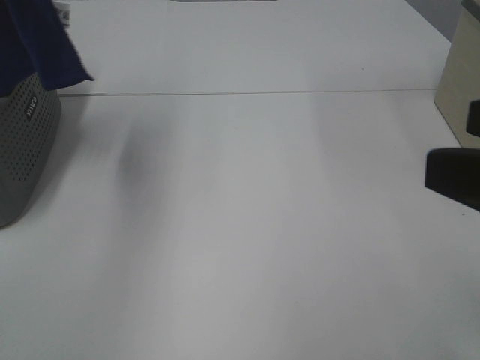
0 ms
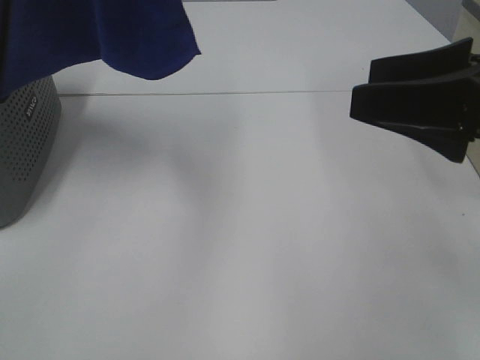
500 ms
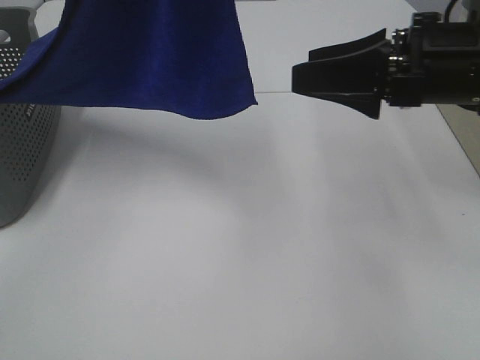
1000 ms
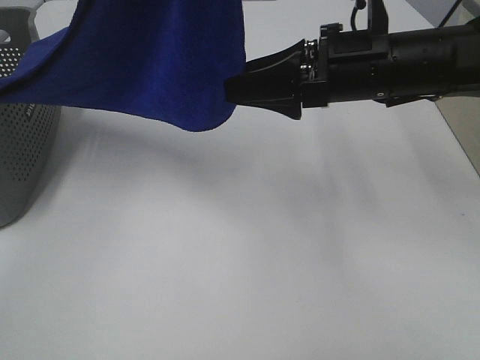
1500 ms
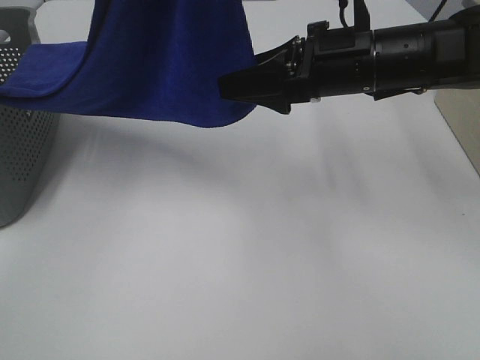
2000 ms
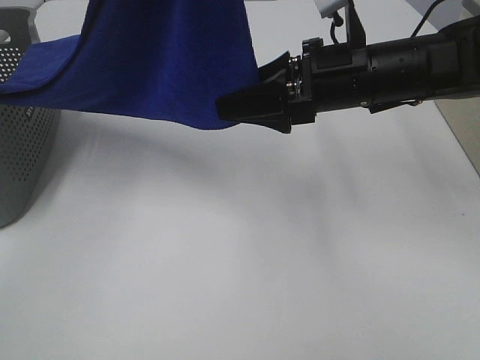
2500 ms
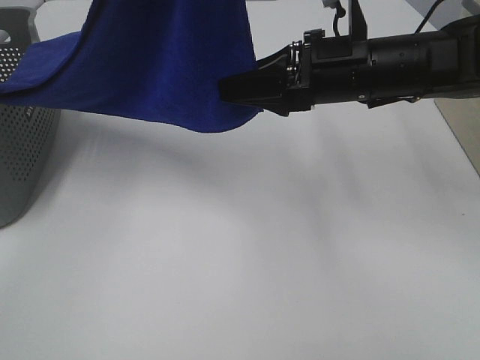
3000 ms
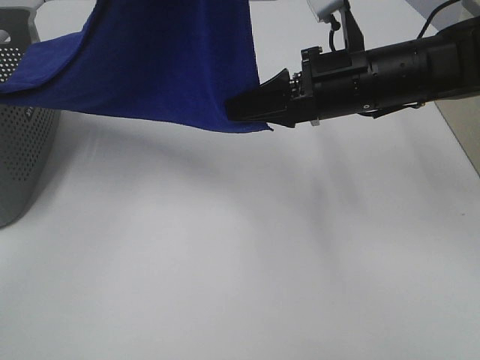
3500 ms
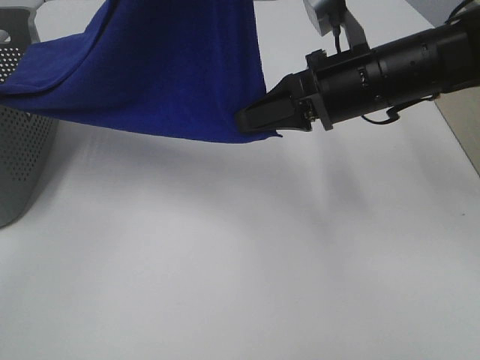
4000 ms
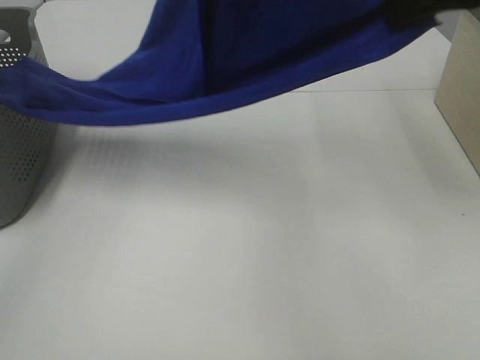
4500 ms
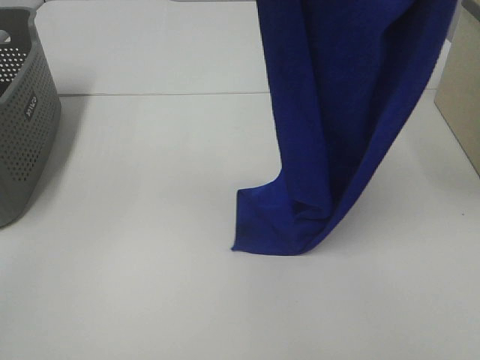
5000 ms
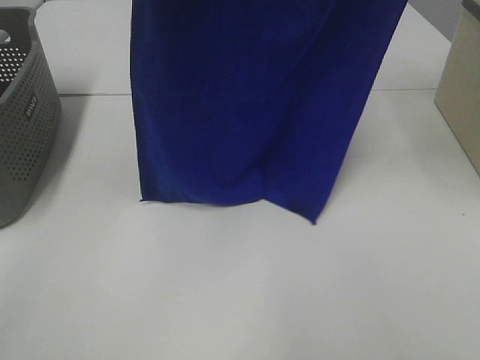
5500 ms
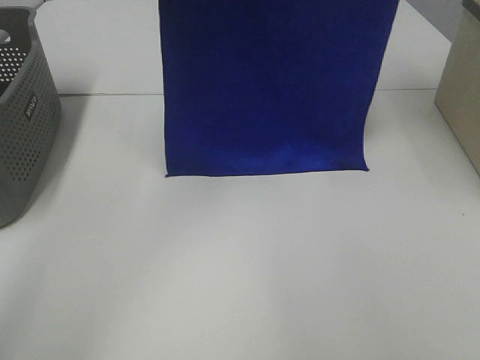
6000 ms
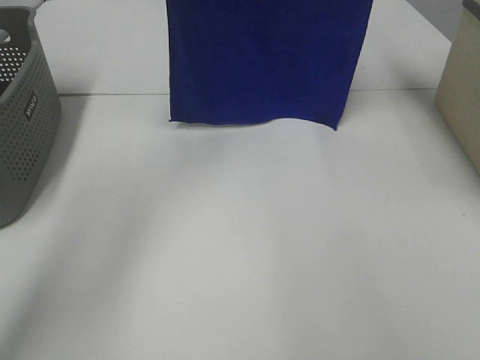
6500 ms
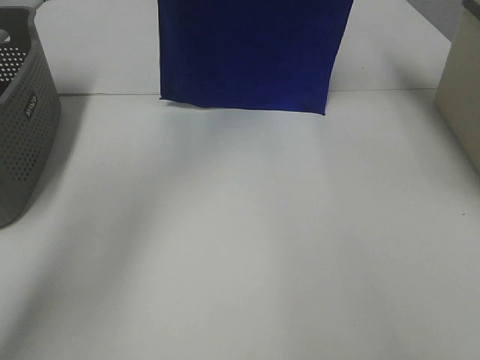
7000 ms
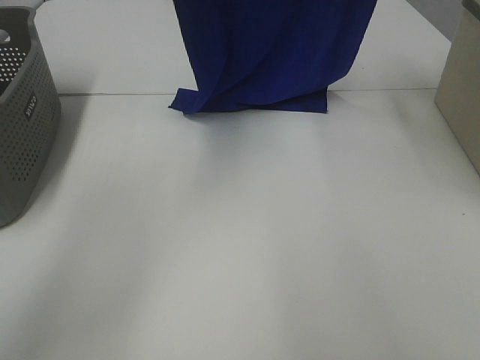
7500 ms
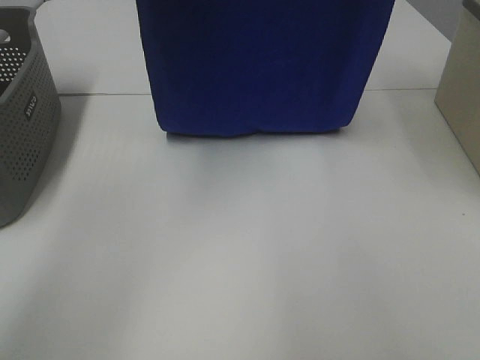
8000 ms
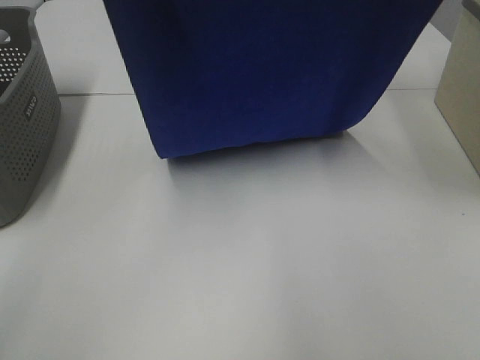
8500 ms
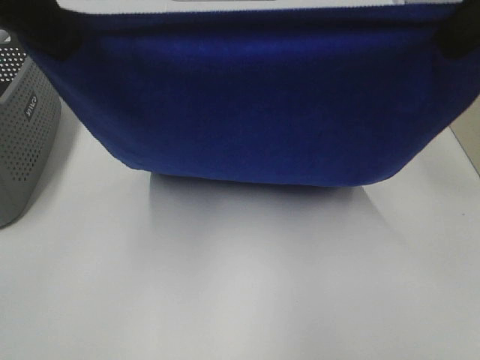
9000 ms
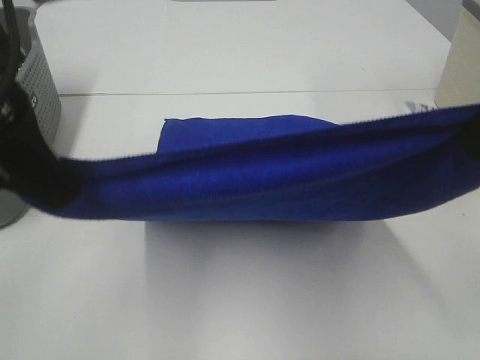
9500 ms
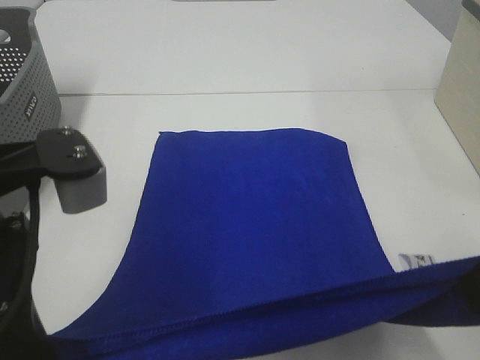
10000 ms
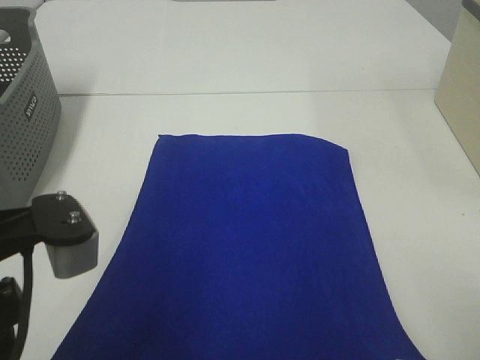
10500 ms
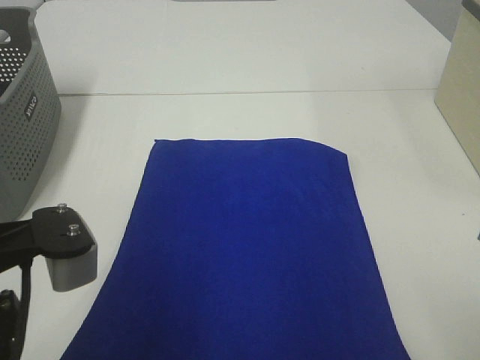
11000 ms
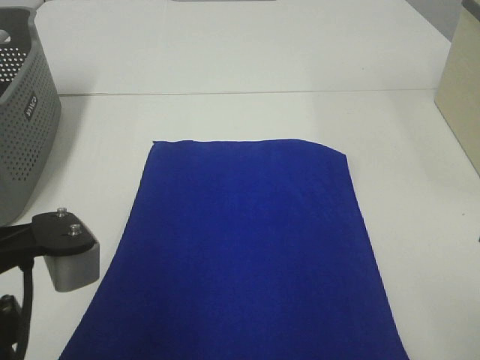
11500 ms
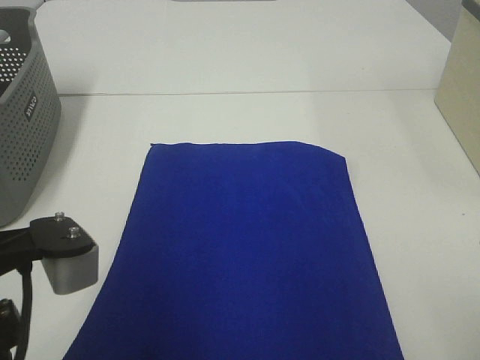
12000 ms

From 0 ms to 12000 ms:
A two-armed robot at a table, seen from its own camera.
Task of the whole recording: Remove the towel and place it.
Step, from 0 ms to 3000 ms: Right hand: grab a corner of the blue towel and straighten it.
Step, from 3500 ms to 7500 ms: Left hand: spread the blue towel flat on the table.
Step, from 3500 ms to 7500 ms: Right hand: spread the blue towel flat on the table.
From 0 ms to 2000 ms: The right gripper goes some 25 cm forward and to the left, while the left gripper shifts about 15 cm to the right.
From 2000 ms to 4000 ms: The right gripper closes up.
From 4000 ms to 6000 ms: The right gripper travels upward by roughly 25 cm; the left gripper heads forward, covering about 15 cm.
From 6000 ms to 8000 ms: The left gripper goes forward and returns, some 10 cm each way, while the right gripper reaches approximately 10 cm forward, then returns.
From 8000 ms to 10000 ms: The two grippers go approximately 35 cm backward and downward.
From 10000 ms to 12000 ms: The right gripper moves downward, about 5 cm.

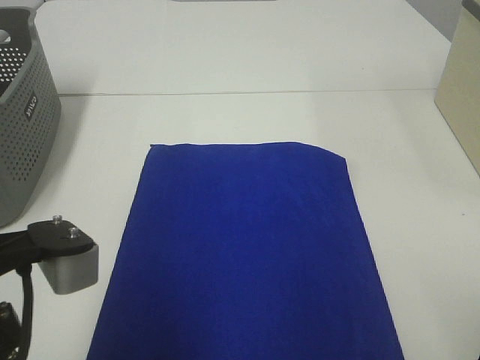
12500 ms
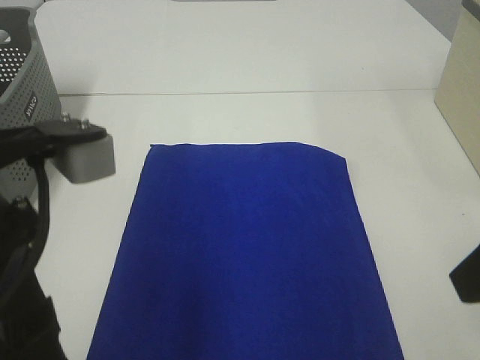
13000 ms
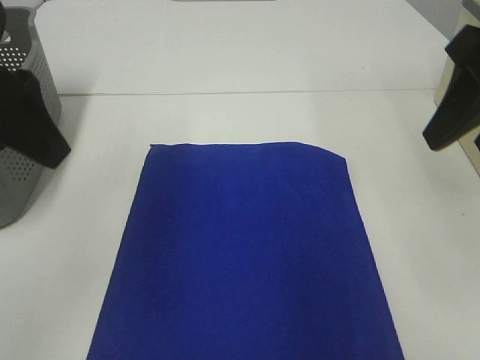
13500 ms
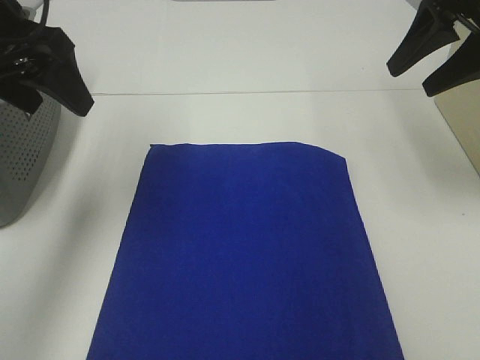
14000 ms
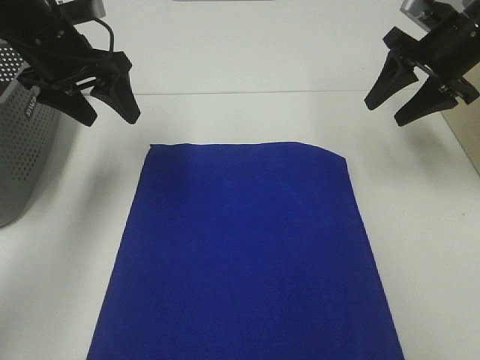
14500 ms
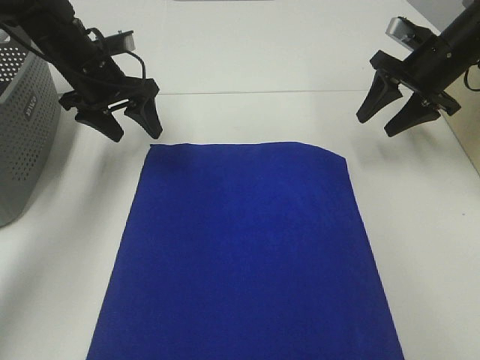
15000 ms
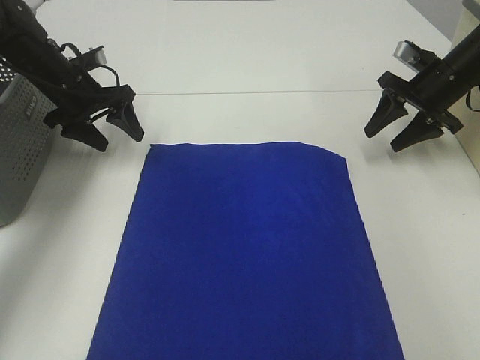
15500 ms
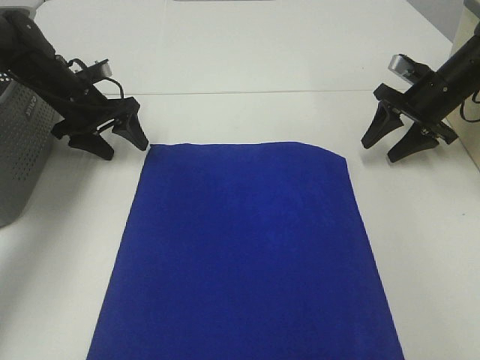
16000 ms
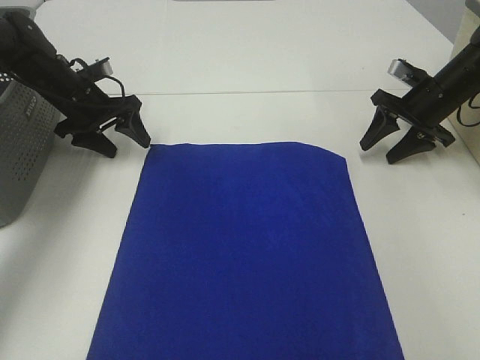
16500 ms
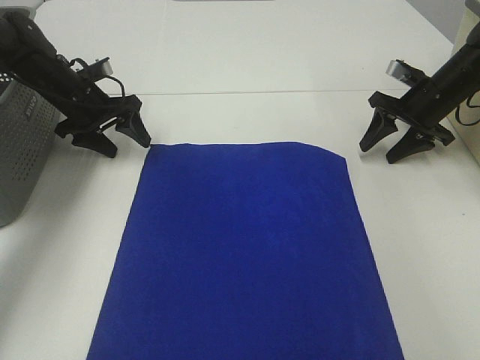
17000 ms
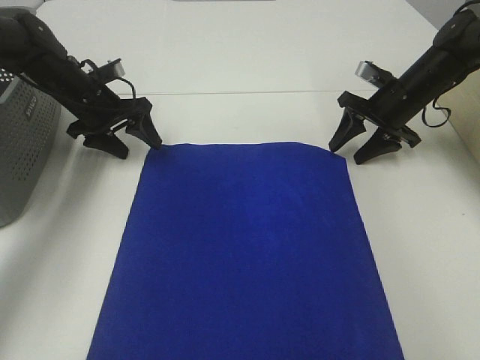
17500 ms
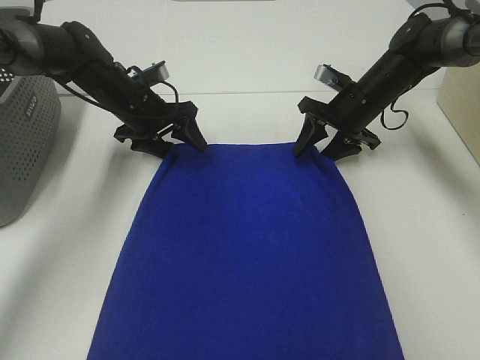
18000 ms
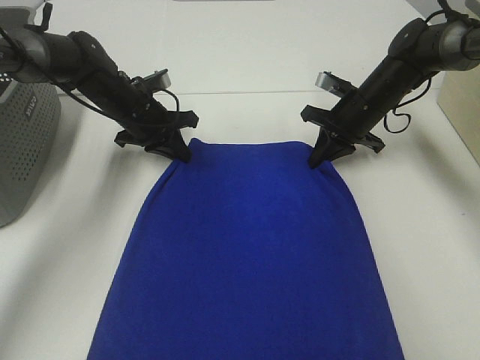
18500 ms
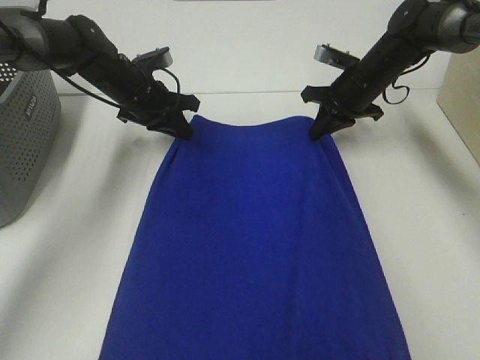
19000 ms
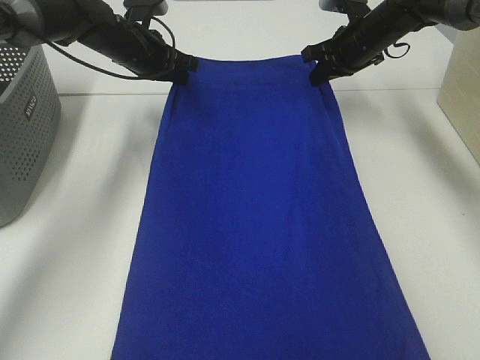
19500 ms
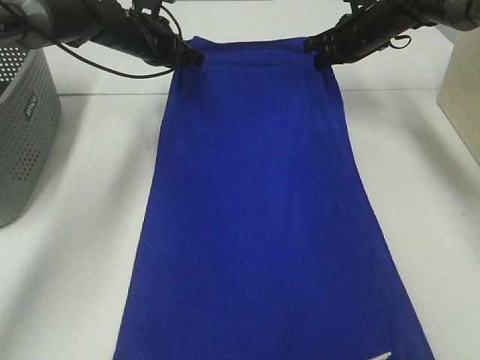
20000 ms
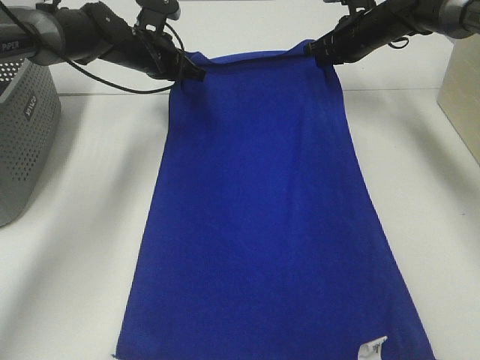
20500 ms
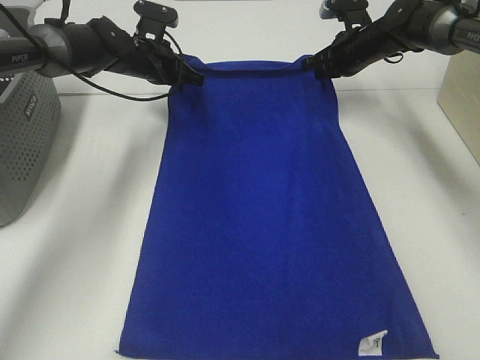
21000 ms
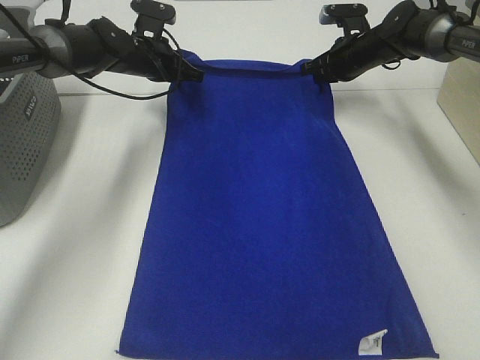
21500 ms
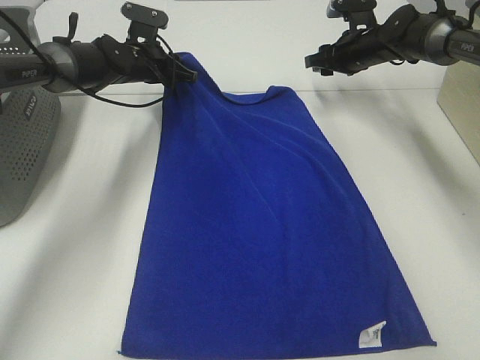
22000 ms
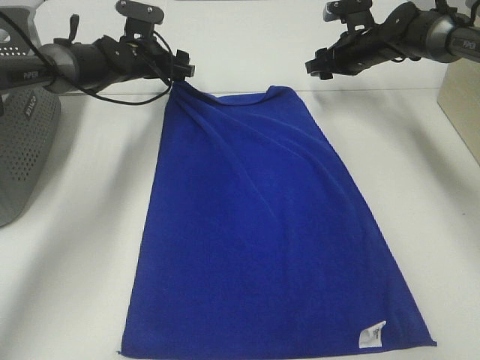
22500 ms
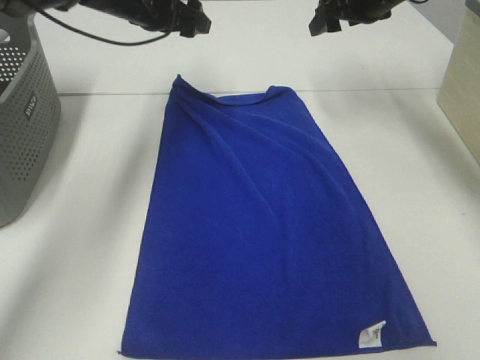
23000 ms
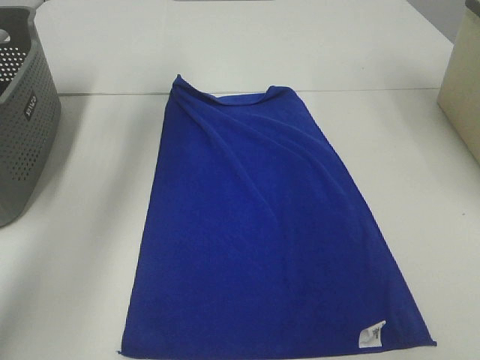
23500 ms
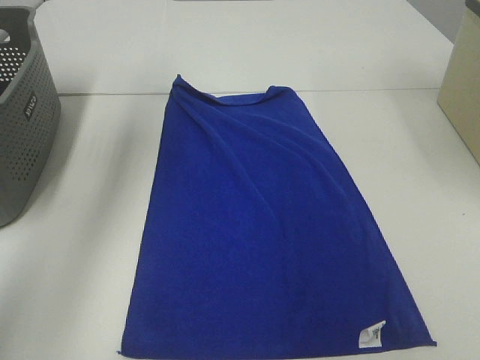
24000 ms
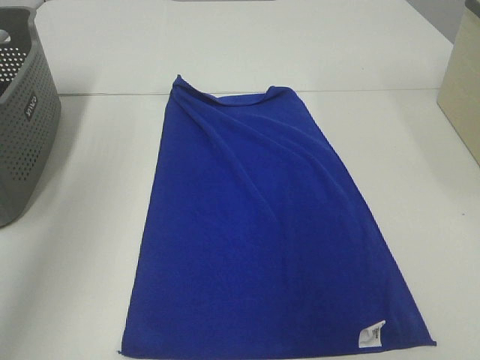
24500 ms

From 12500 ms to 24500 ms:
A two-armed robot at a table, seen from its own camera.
Task of the whole recording: Remove the towel and place it.
Step, from 12500 ms to 15500 ms: Left hand:adjust the blue towel.
Step, from 12500 ms to 15500 ms: Right hand:adjust the blue towel.
From 12500 ms to 14500 ms: The two grippers go about 35 cm forward.
From 14500 ms to 16500 ms: The right gripper is displaced downward by about 10 cm, while the left gripper heads downward and forward, covering about 15 cm.
From 16500 ms to 18500 ms: The left gripper is displaced to the right by about 10 cm, and closes; the right gripper moves to the left, approximately 10 cm, and closes its fingers.
From 18500 ms to 20500 ms: The two grippers go some 10 cm forward and upward.
From 20500 ms to 22500 ms: The left gripper opens its fingers, while the right gripper opens its fingers.
From 22500 ms to 24500 ms: The two grippers go some 50 cm backward and upward.

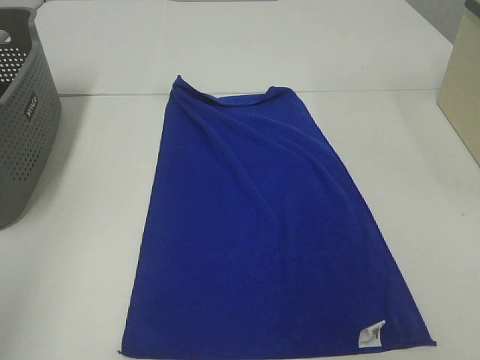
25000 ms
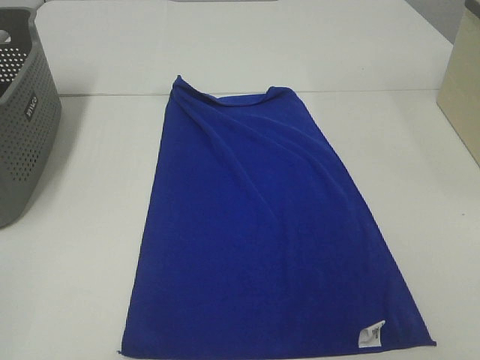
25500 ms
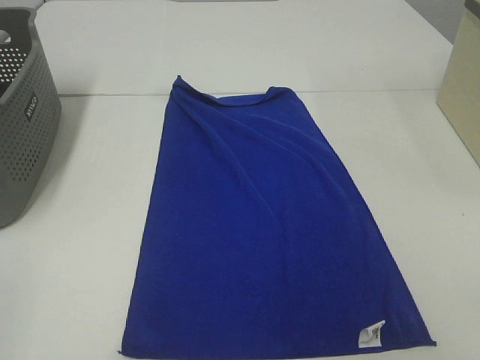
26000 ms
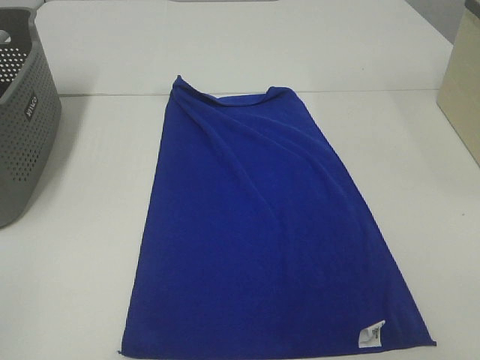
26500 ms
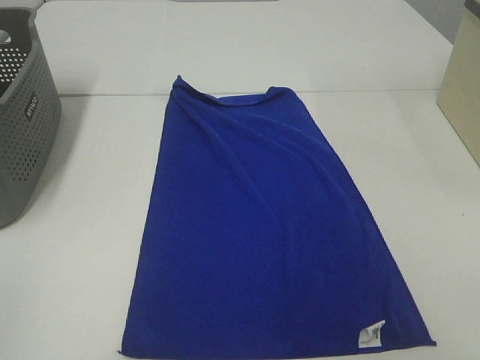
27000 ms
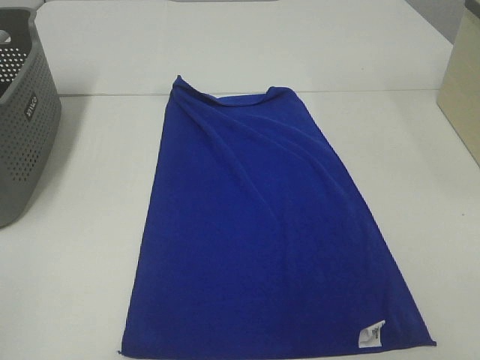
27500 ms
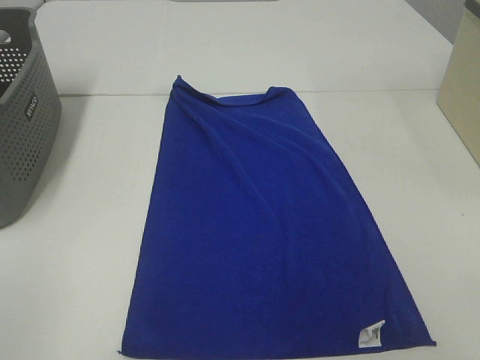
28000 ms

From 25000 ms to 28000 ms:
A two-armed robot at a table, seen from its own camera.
Task of the whole recording: Remove the towel and place it.
From 25000 ms to 26500 ms: The left gripper travels downward and backward by about 10 cm.
